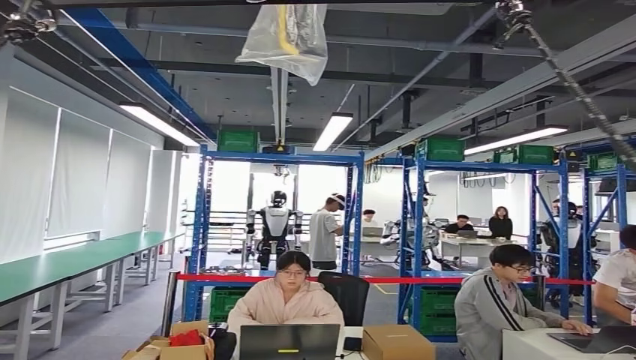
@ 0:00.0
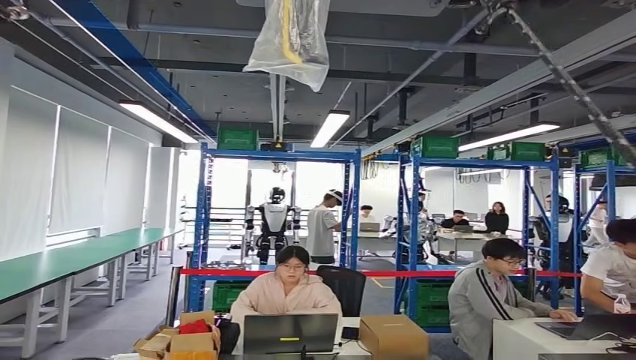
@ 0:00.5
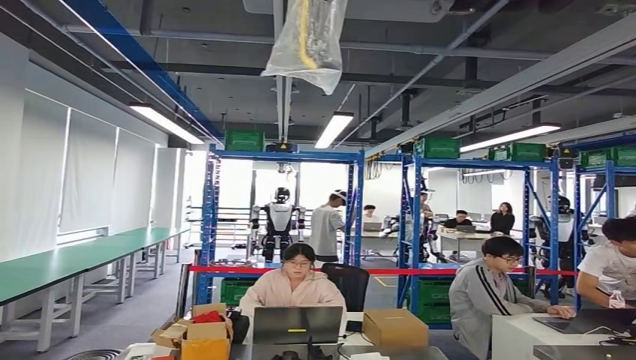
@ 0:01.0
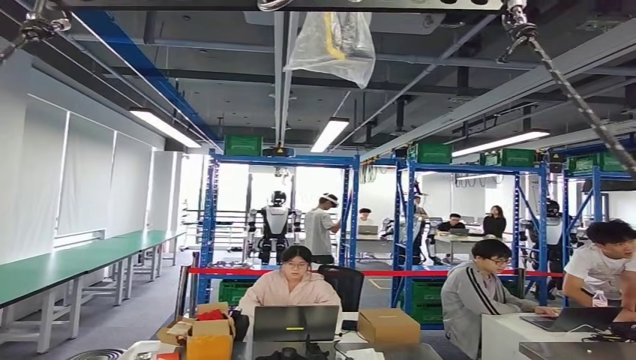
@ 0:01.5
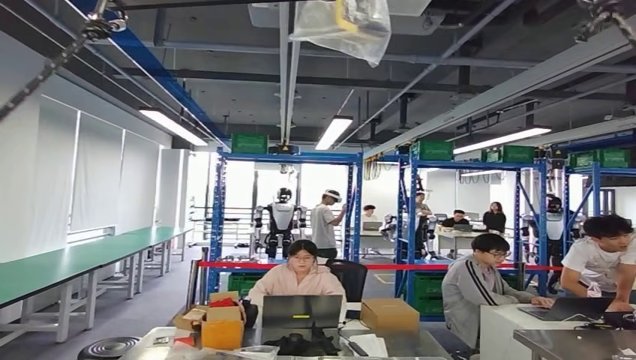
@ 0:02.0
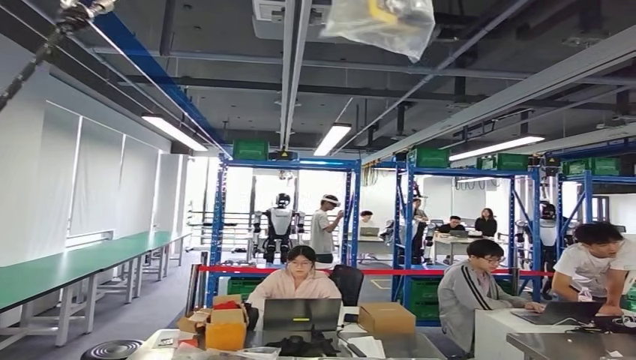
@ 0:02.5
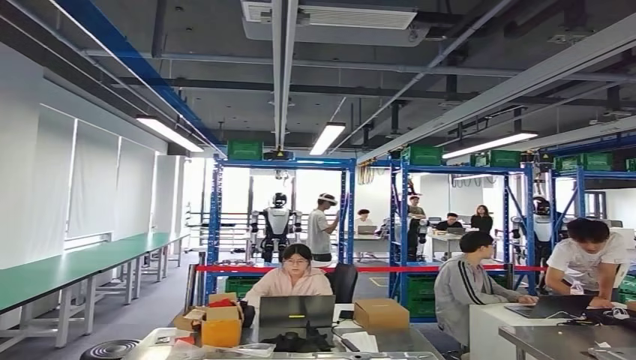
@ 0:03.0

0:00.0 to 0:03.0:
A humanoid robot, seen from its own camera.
Step, 0:00.0 to 0:03.0: Return to the initial position at the workbench.
